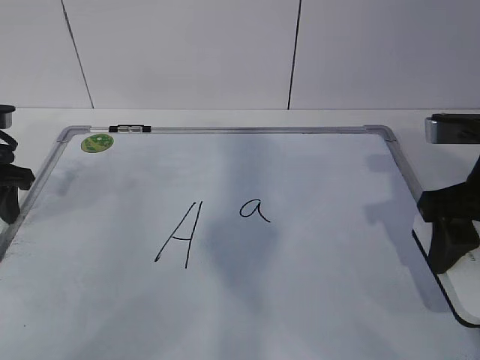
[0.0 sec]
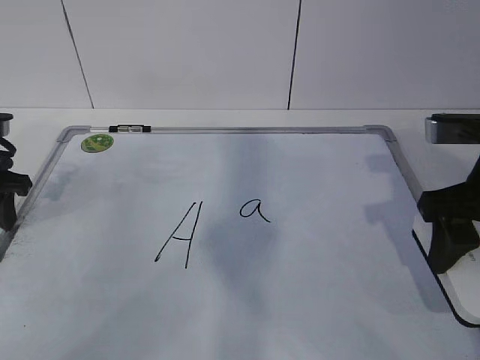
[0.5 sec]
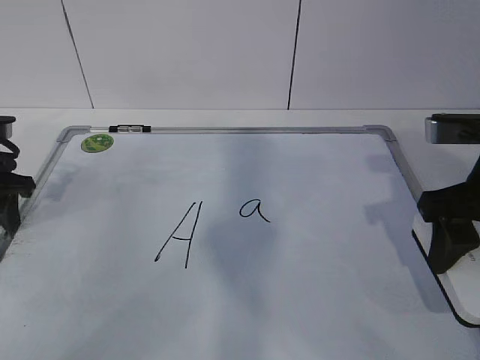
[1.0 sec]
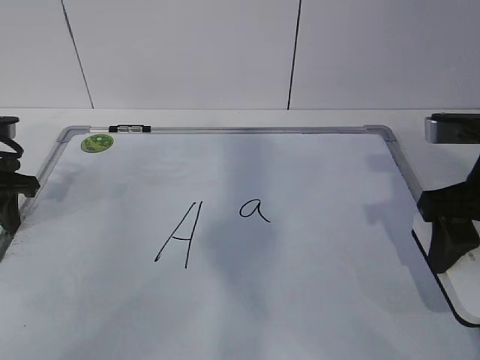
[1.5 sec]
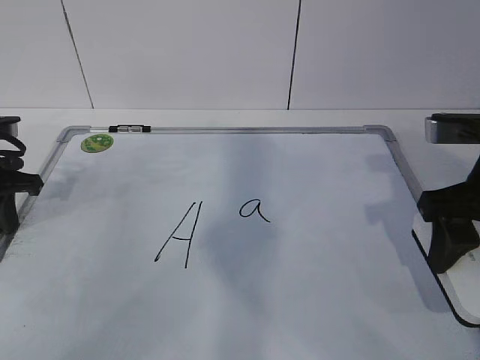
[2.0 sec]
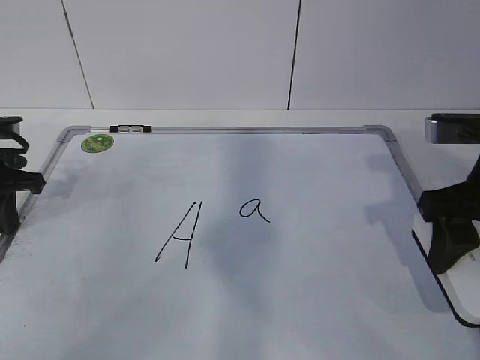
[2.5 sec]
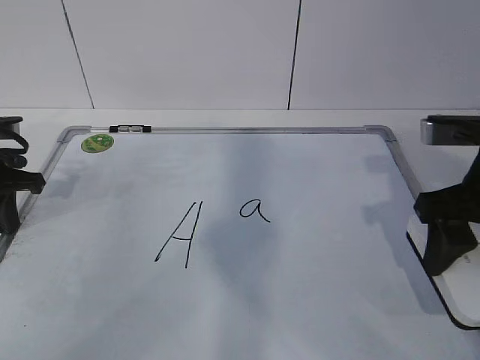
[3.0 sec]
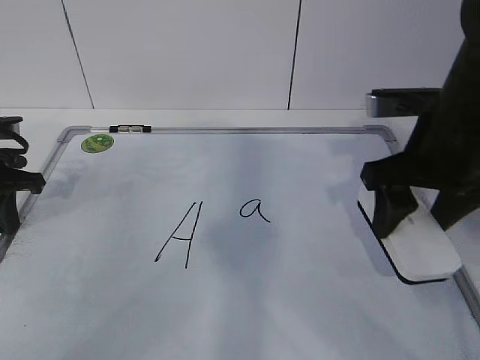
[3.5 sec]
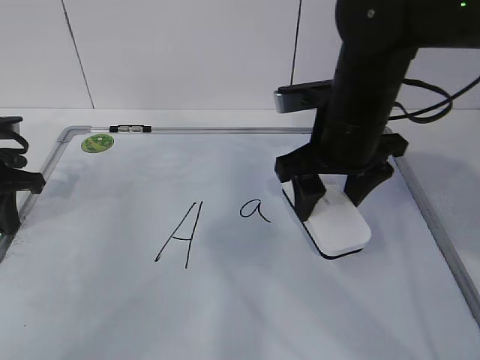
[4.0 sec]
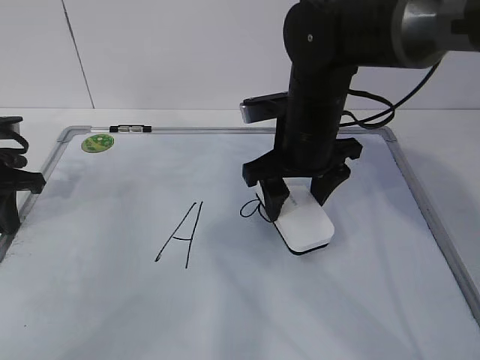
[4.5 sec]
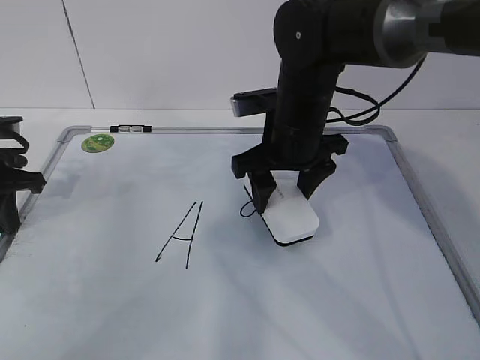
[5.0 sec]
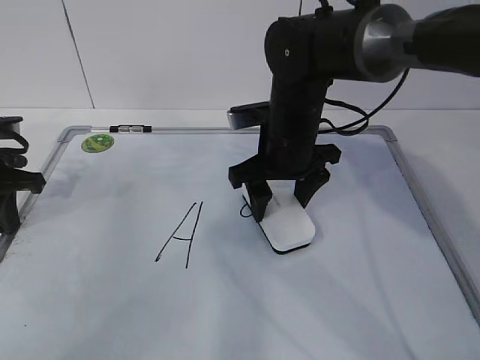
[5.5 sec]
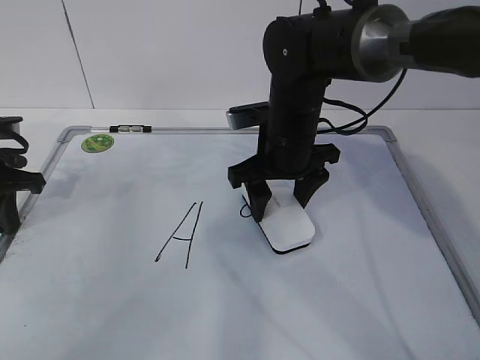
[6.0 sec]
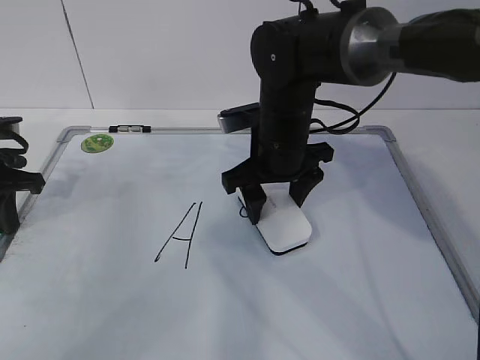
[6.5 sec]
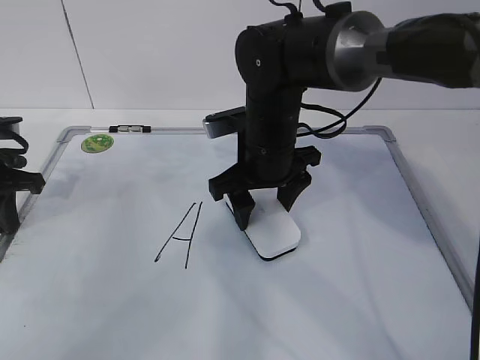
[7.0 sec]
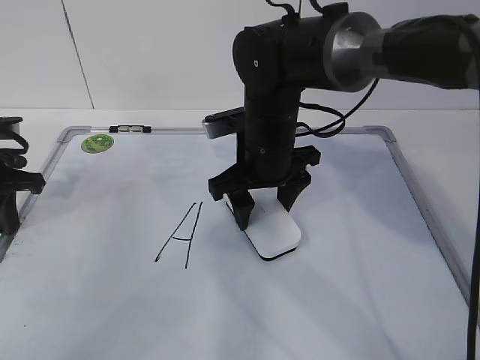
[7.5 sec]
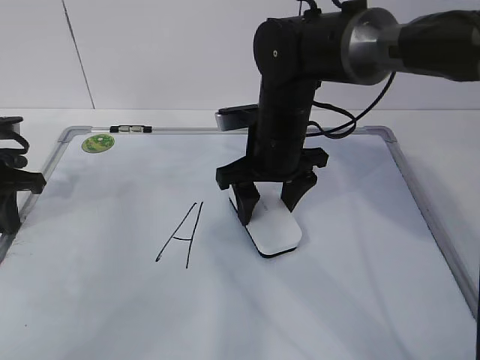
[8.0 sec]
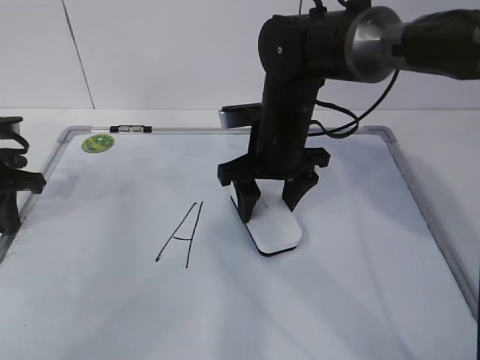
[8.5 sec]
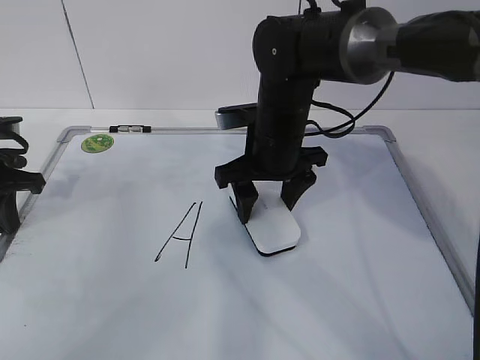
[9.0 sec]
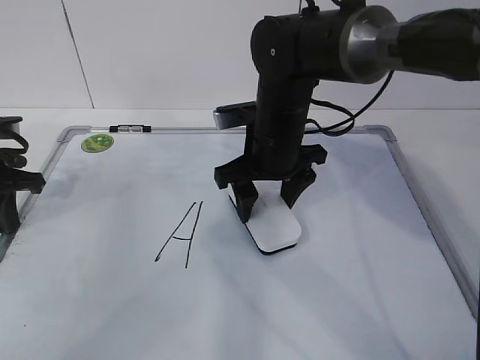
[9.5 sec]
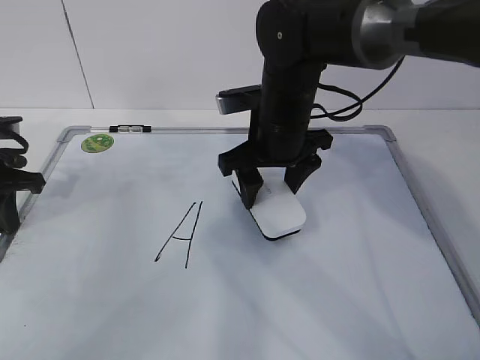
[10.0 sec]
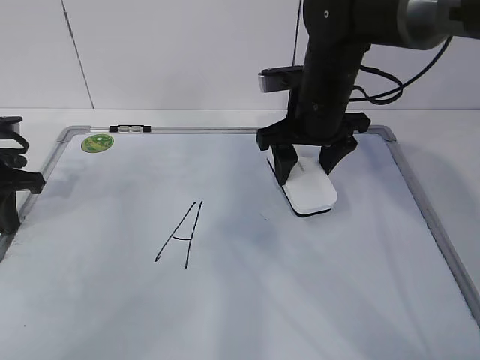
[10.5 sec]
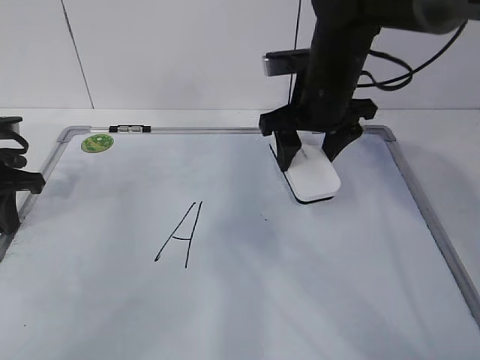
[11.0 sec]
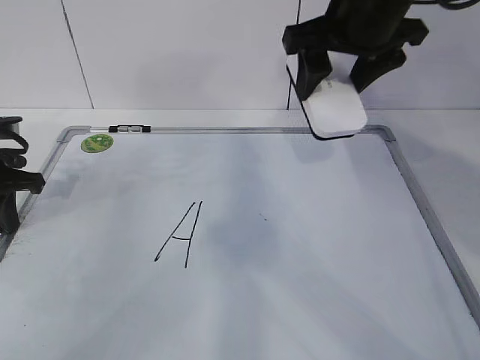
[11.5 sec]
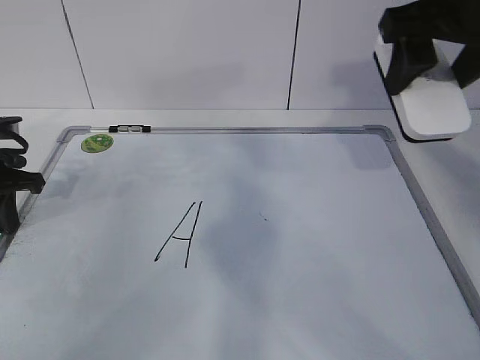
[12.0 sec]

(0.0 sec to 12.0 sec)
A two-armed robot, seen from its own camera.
Task of the whole recording: pick up the eraser on the blackboard and erase the letter "a".
Step, 0.0 sec - 4.5 sec: Erase the letter a with your right hand.
Step, 5.5 sec - 11.0 sec: Put down the eraser with your right hand.
0.0 sec - 2.0 sec: The left gripper closes its fingers.
2.0 sec - 4.0 sec: The right gripper shifts roughly 15 cm to the left and forward.
4.0 sec - 6.0 sec: The right gripper shifts approximately 10 cm downward and forward.
6.0 sec - 10.0 sec: The grippers make only small movements.
10.0 sec - 12.0 sec: The right gripper is displaced upward, to the right and backward by about 20 cm.

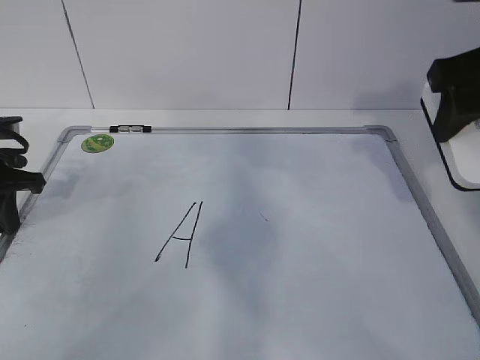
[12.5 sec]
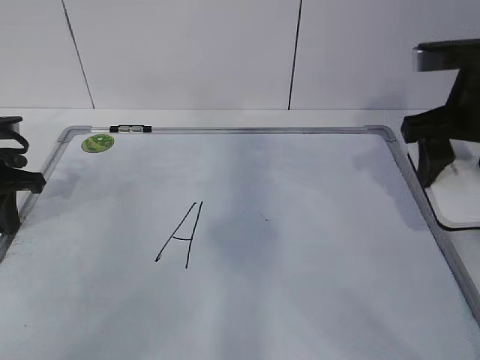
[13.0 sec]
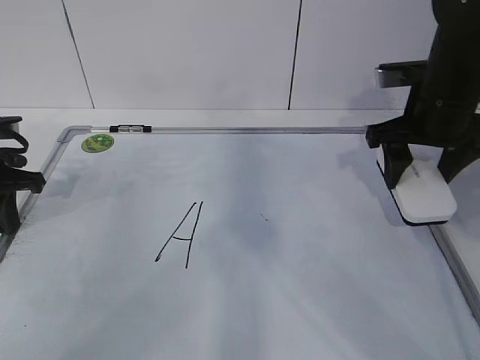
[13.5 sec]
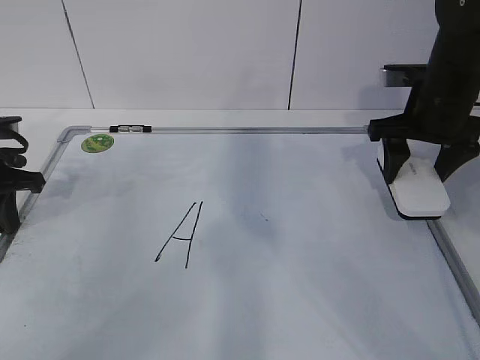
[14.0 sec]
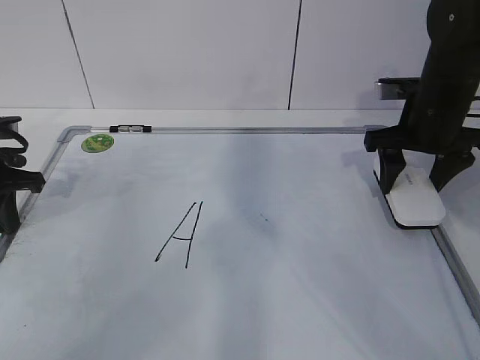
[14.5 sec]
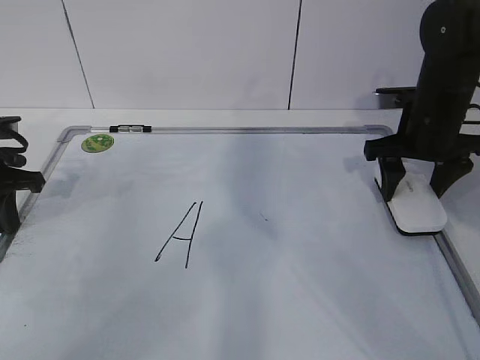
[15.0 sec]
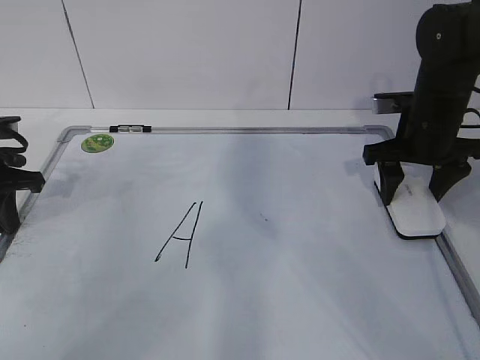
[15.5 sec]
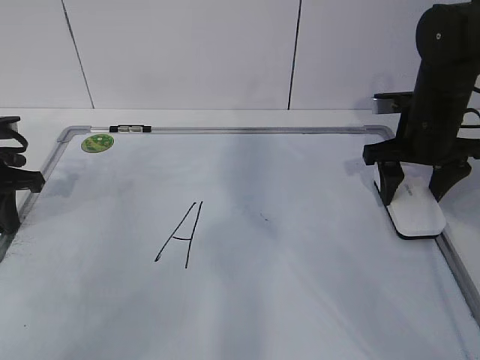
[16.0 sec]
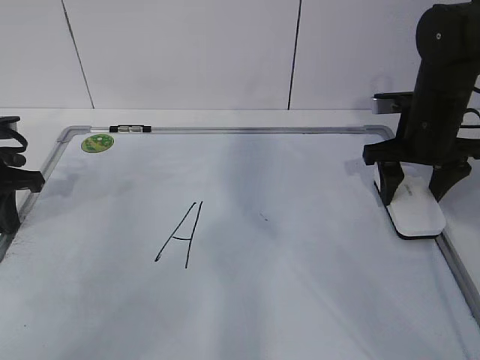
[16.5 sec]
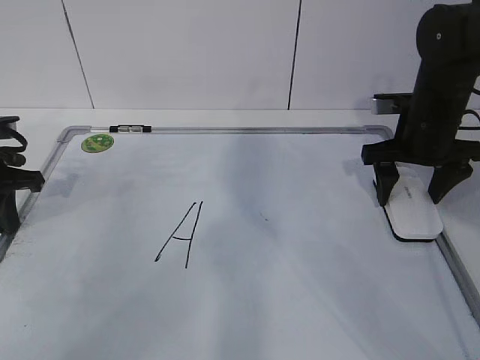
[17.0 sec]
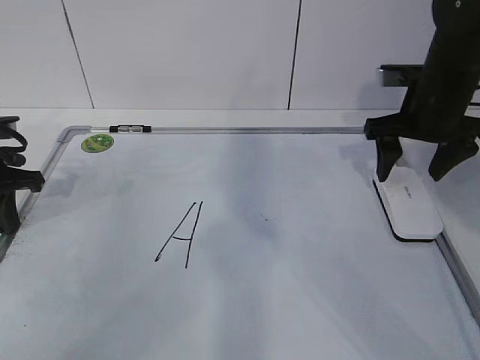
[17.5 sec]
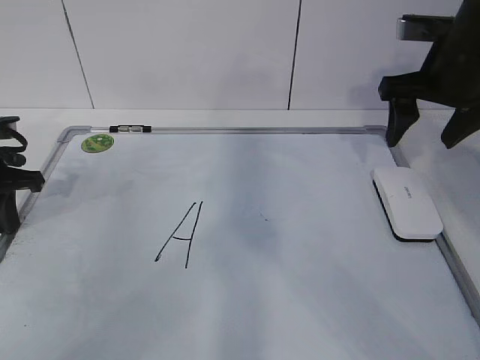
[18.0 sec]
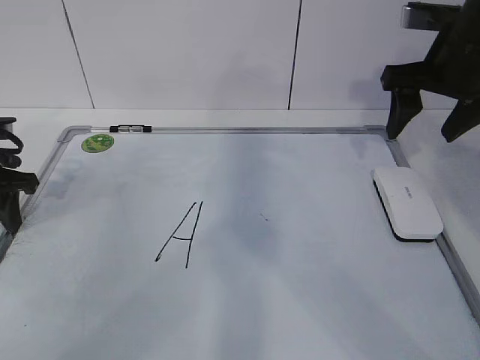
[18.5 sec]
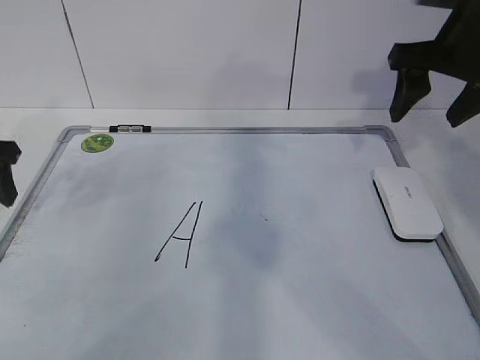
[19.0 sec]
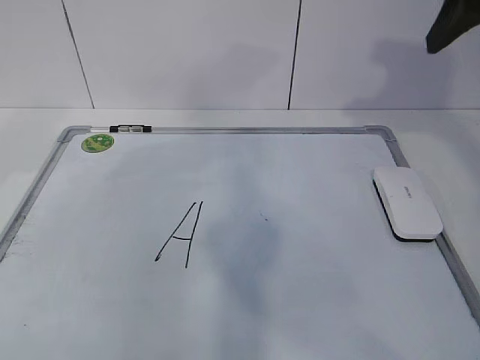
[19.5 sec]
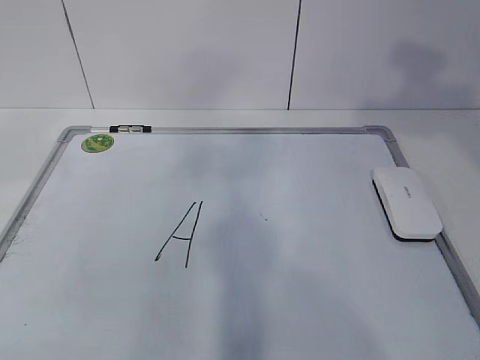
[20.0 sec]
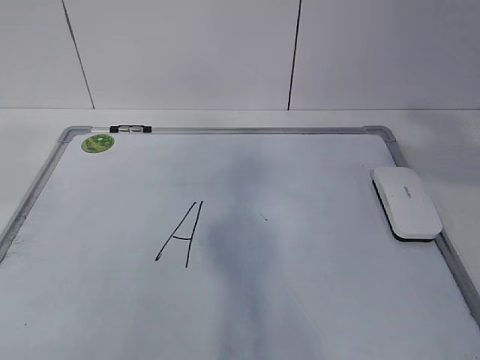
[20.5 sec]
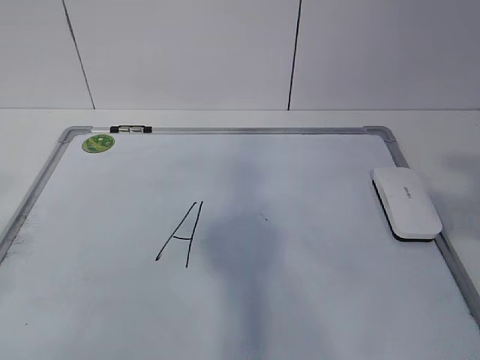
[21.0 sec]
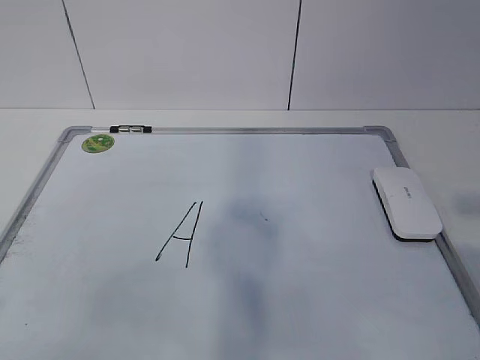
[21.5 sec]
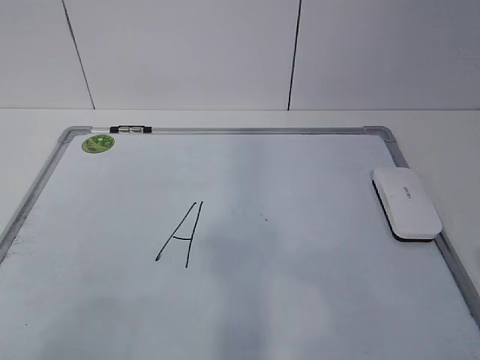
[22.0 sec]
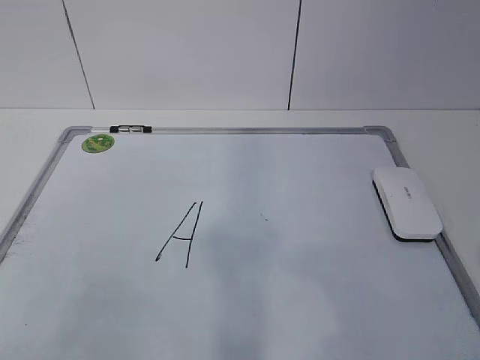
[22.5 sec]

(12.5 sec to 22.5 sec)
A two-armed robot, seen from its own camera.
Task of the whole recording: pick up the eraser on the blackboard and erase the letter "a".
12.5 sec - 14.5 sec: The right gripper shifts roughly 15 cm downward and forward.
14.5 sec - 16.5 sec: The grippers stay close to where they were, moving slightly.
16.5 sec - 18.5 sec: The right gripper moves upward, approximately 10 cm, and opens; the left gripper opens its fingers.
18.5 sec - 20.5 sec: The right gripper goes approximately 30 cm backward and upward. Meanwhile the left gripper moves upward and backward, roughly 35 cm, and opens its fingers.
20.5 sec - 22.5 sec: The two grippers go roughly 20 cm downward and backward.

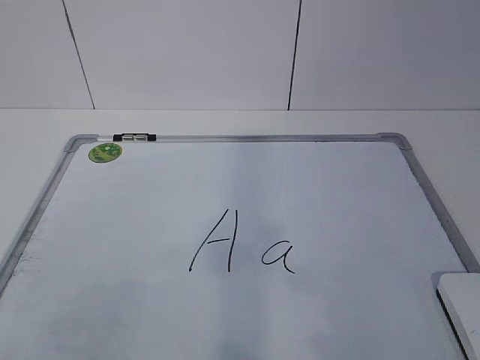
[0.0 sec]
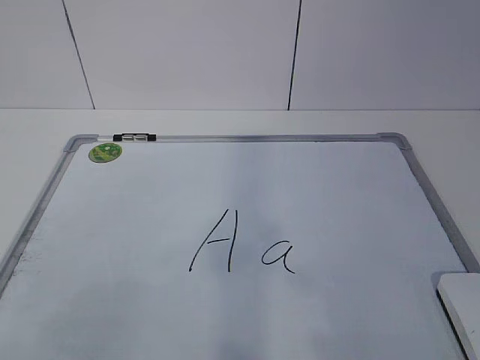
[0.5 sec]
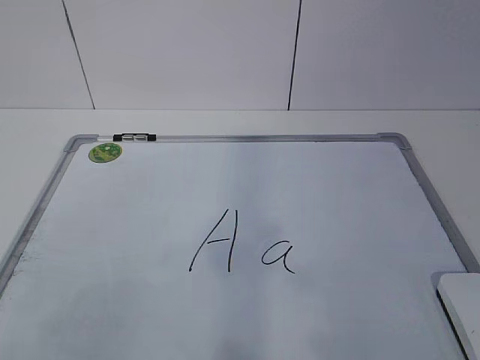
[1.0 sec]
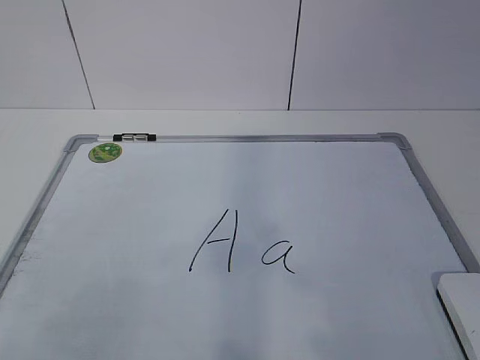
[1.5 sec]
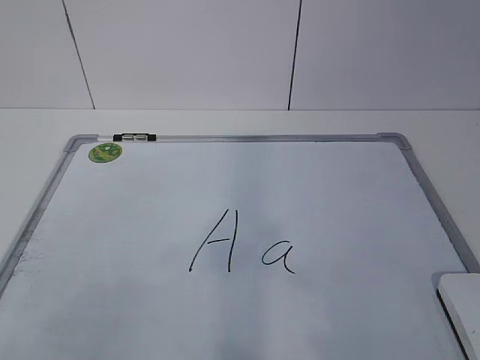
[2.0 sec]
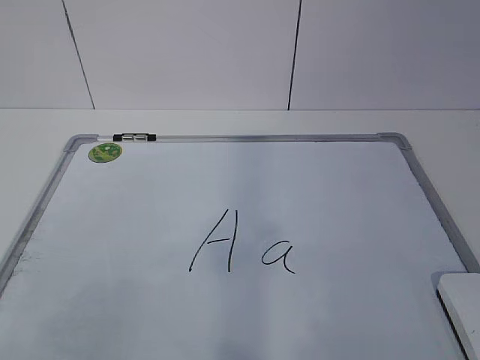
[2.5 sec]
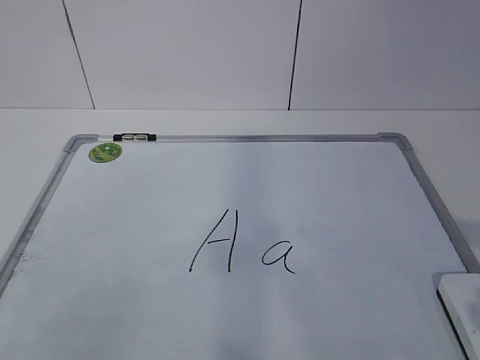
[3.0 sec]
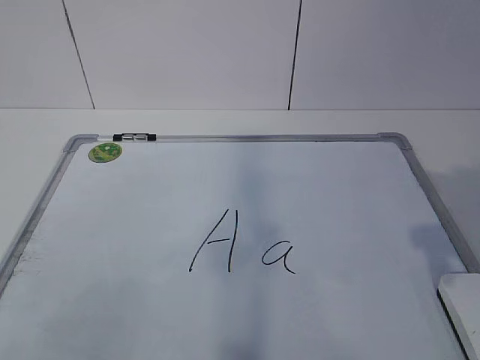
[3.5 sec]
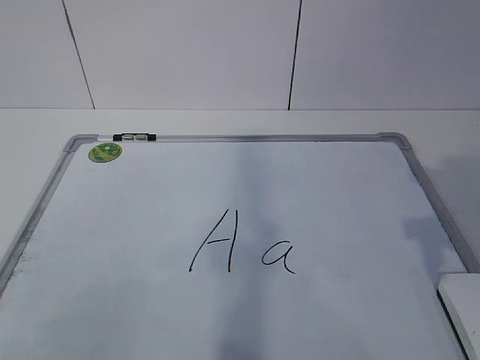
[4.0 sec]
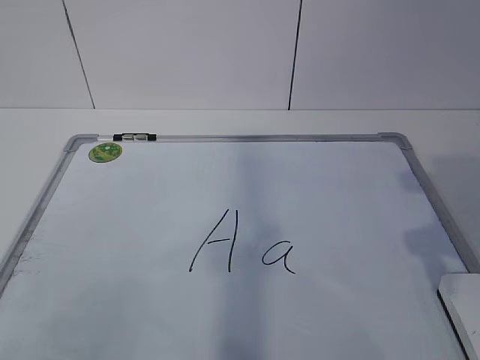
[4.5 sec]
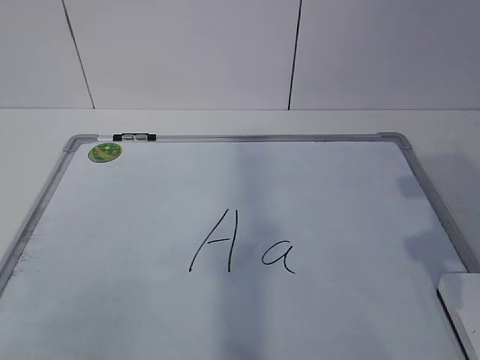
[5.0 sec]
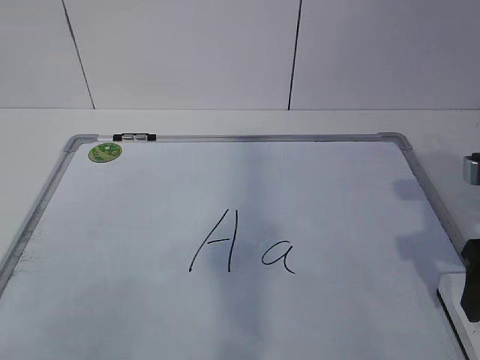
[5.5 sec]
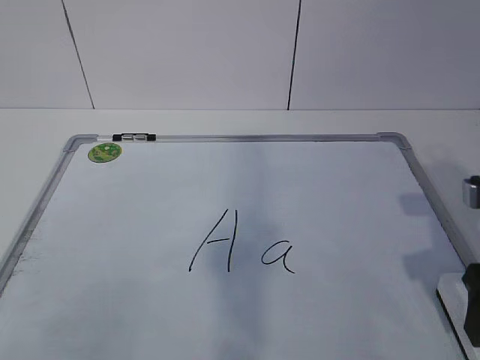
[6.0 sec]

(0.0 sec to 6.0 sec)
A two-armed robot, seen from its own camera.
Task of the whole recording: pick up the eraser on the blackboard and erase the letter "a".
2.0 sec - 4.0 sec: The right gripper shifts approximately 20 cm forward.
4.0 sec - 6.0 sec: The right gripper goes roughly 5 cm downward, and opens up.
